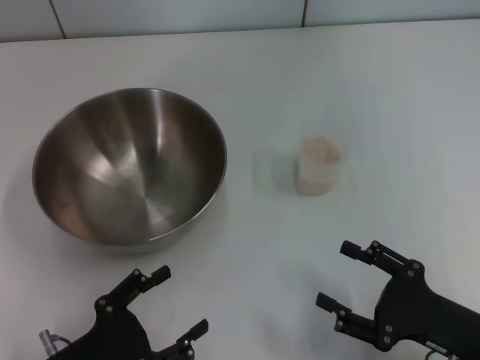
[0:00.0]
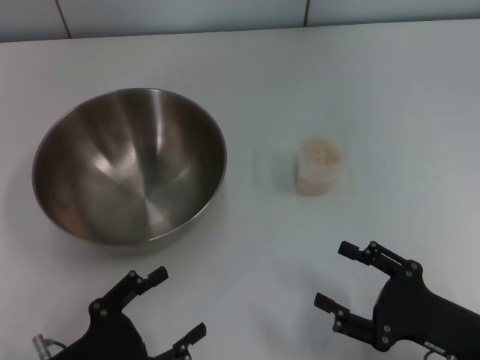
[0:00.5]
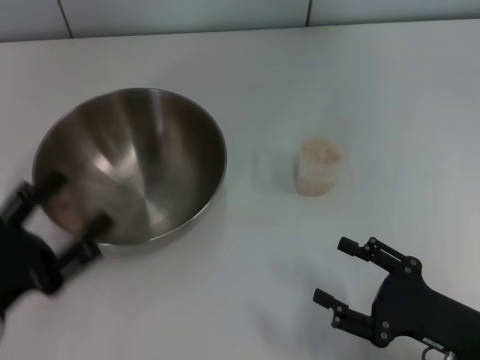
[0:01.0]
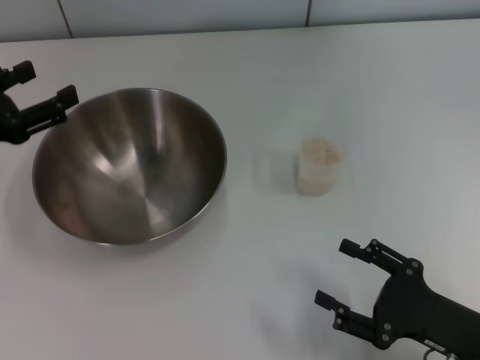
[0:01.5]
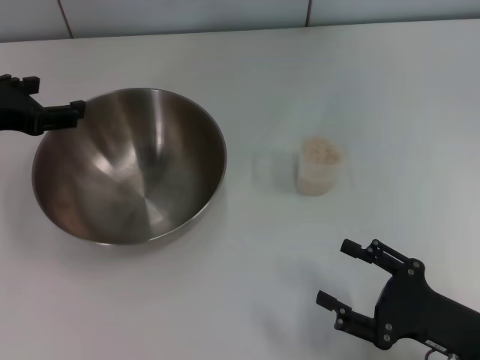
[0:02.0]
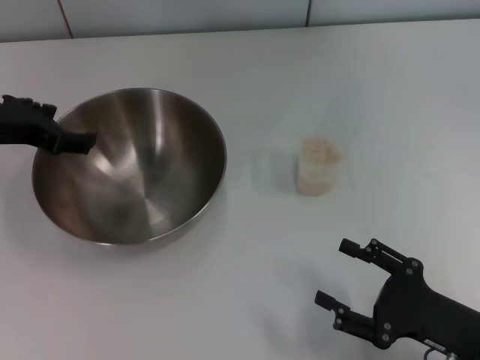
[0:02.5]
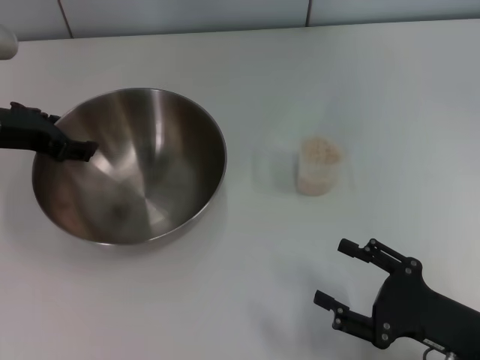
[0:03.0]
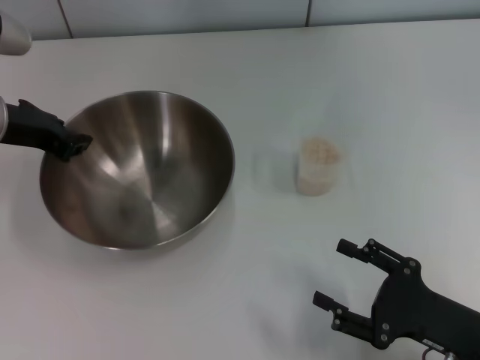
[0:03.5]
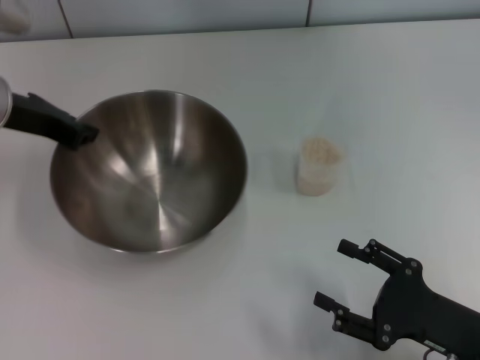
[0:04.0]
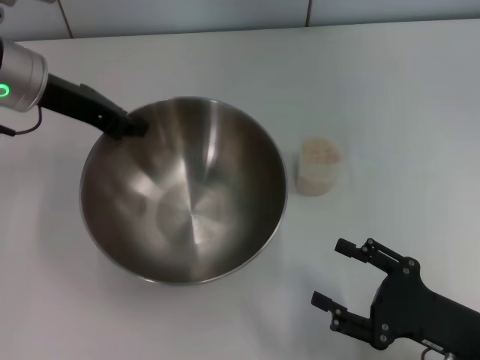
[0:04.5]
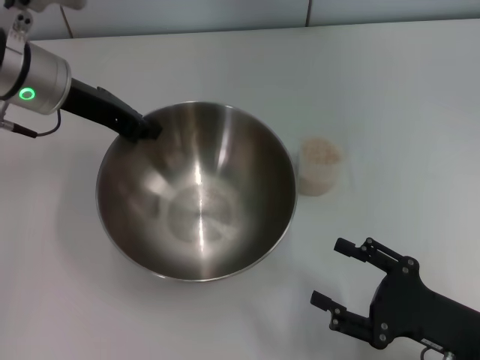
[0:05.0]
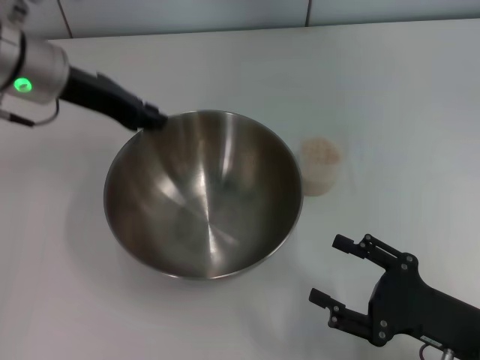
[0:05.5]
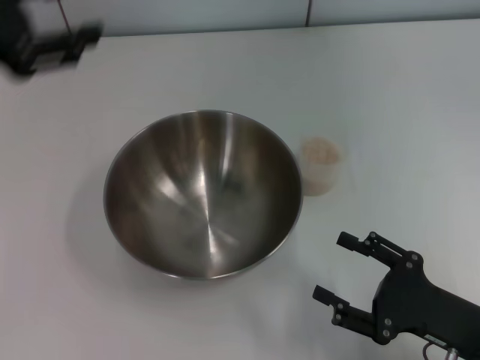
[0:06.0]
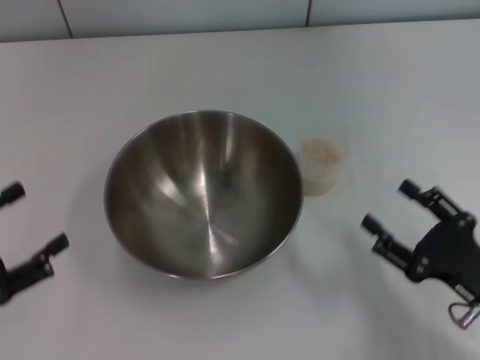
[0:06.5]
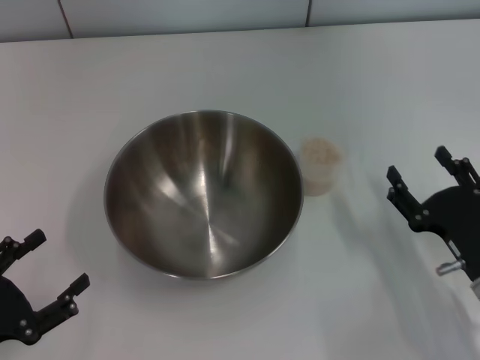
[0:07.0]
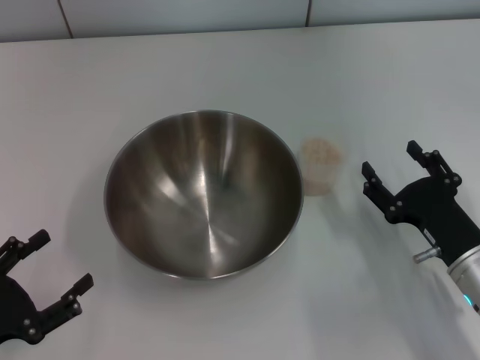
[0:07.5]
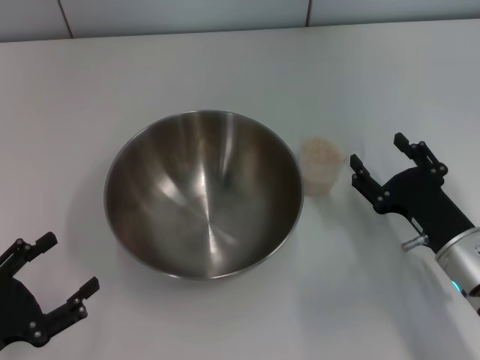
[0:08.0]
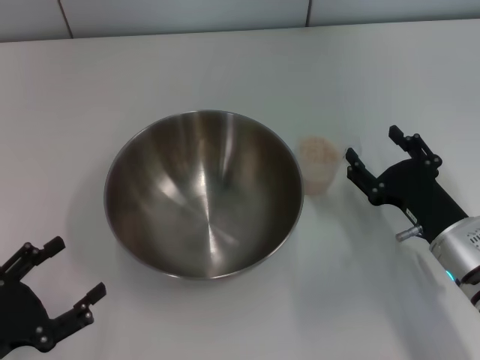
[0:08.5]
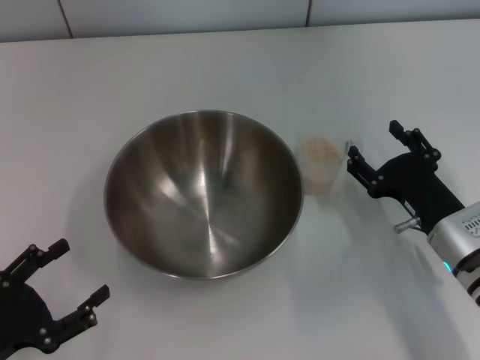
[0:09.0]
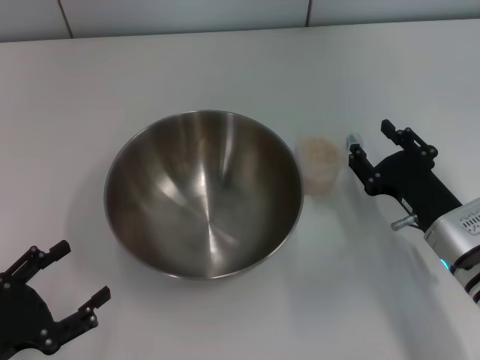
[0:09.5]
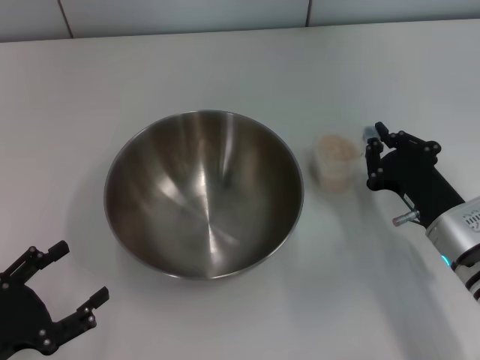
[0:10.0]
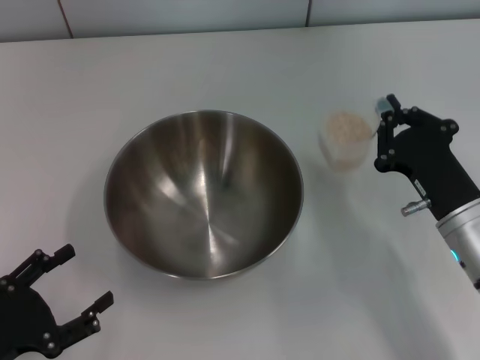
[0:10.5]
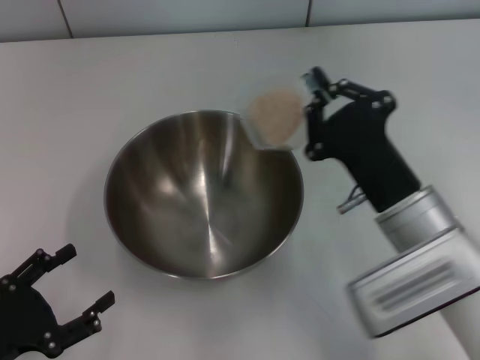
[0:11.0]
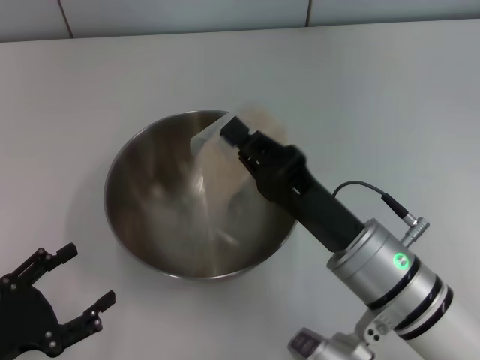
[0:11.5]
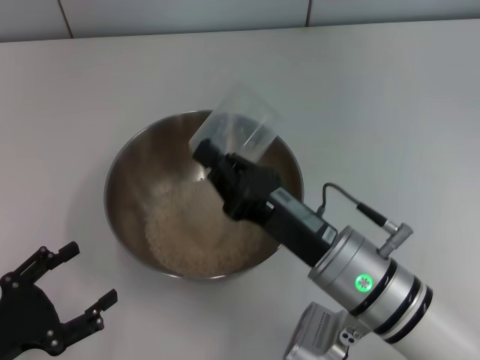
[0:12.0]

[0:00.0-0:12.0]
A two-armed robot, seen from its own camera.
Task of the whole recording: Place the bowl in the middle of the table with one hand and pour the rice from the grain cup into it with the other hand.
Step, 0:00.0 to 0:04.5: Pick up the bowl with the left gripper.
Step, 0:05.0 to 0:06.0: Place the bowl in the center of view with the left gripper.
Step, 0:06.5 to 0:10.5: Pick up the cup with rice in it with the right gripper.
0:00.0 to 0:02.0: The left gripper moves forward and upward, roughly 25 cm.
0:02.0 to 0:04.0: The left gripper changes place by roughly 5 cm, and closes its fingers.
0:04.0 to 0:06.0: The left gripper travels backward and upward by some 10 cm, and opens.
0:06.0 to 0:08.0: The left gripper moves downward and backward, approximately 25 cm, and opens its fingers. Meanwhile the right gripper is displaced forward by approximately 10 cm.
0:08.0 to 0:10.0: The right gripper closes up.
0:10.0 to 0:12.0: The right gripper travels to the left by some 10 cm.

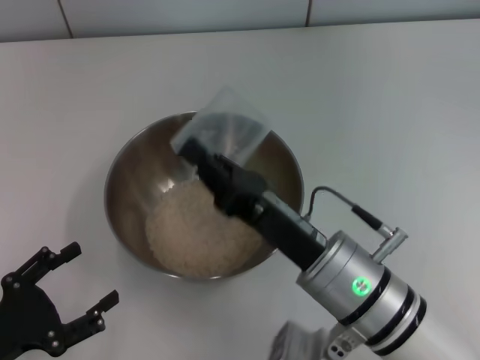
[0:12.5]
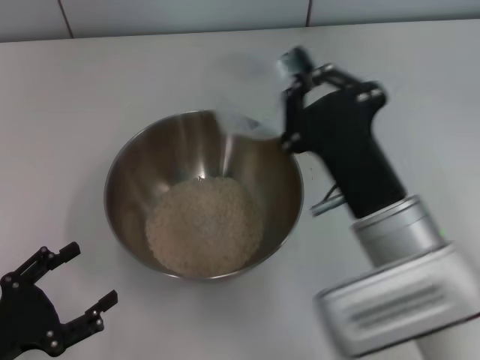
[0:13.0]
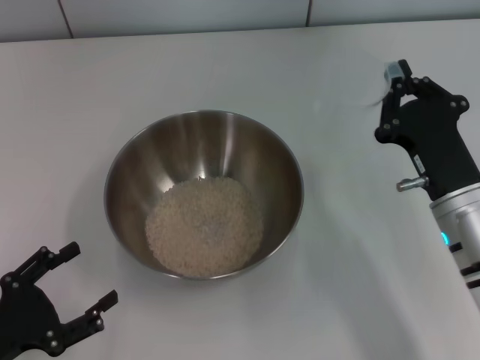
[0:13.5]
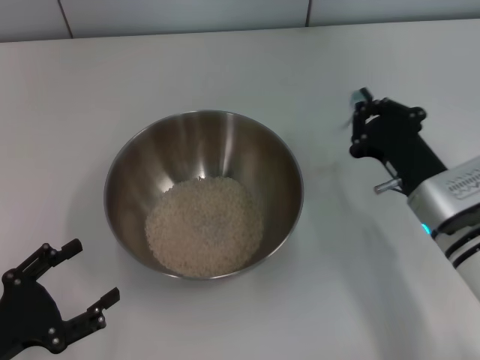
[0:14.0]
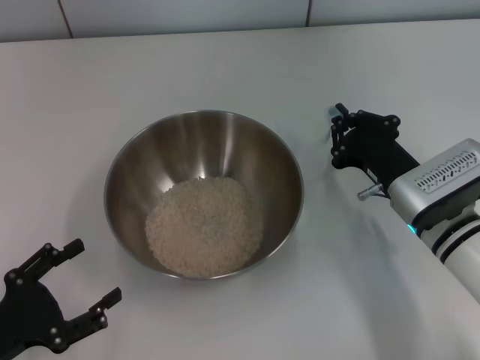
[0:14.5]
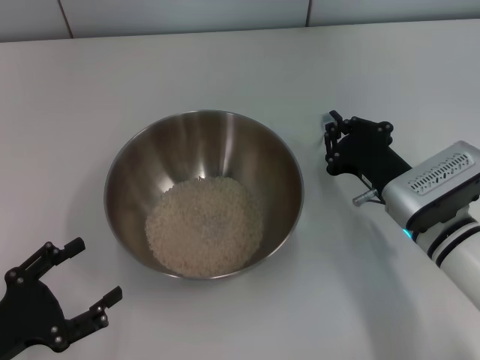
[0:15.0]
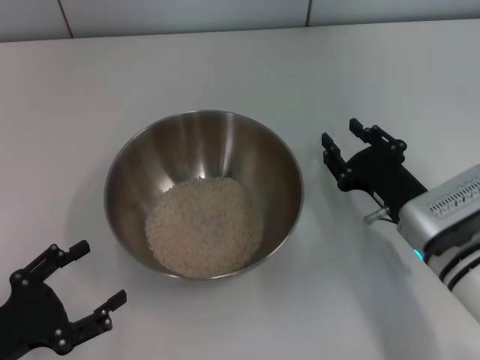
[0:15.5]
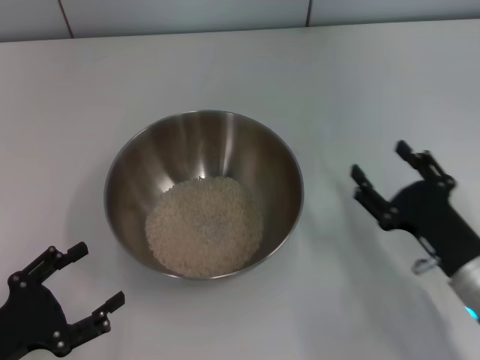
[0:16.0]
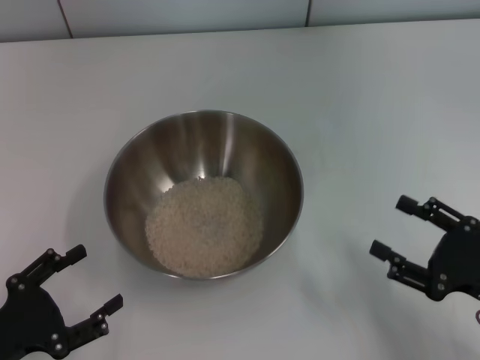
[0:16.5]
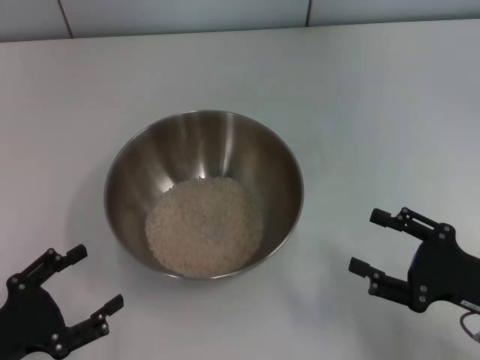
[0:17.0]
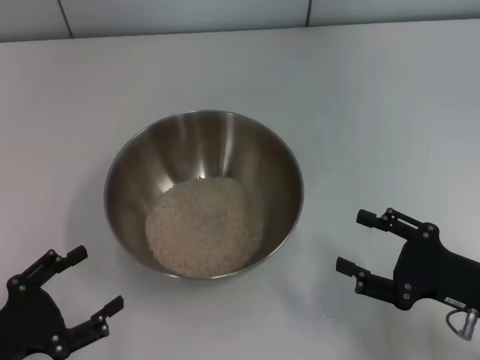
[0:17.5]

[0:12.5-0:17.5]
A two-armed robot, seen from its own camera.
Task of the whole recording: Place the bowl in the middle of the table with one hand and pour the rice from the grain cup into it with the other hand.
Step, 0:13.5 to 0:16.0: Place the cup on the table with the right gripper.
0:12.5 to 0:15.0: The right gripper is displaced to the right, forward and downward by about 15 cm.
0:15.0 to 0:17.5: The right gripper shifts some 15 cm backward and to the right, and opens up.

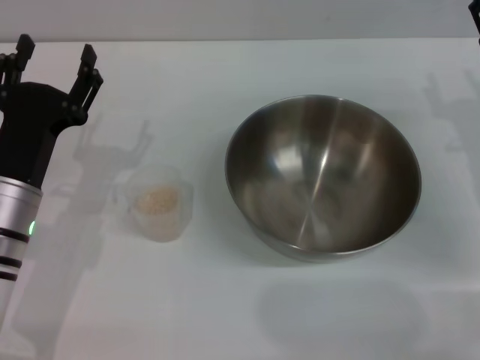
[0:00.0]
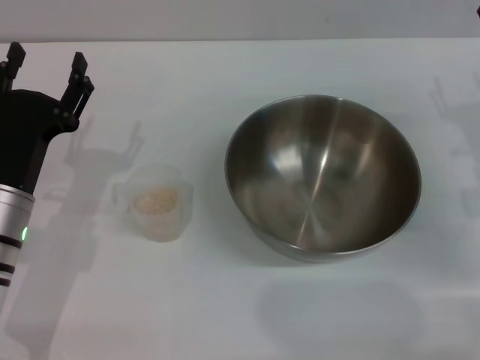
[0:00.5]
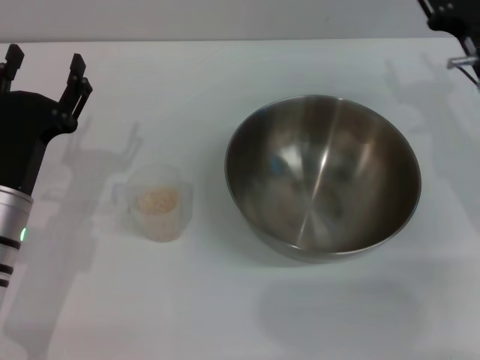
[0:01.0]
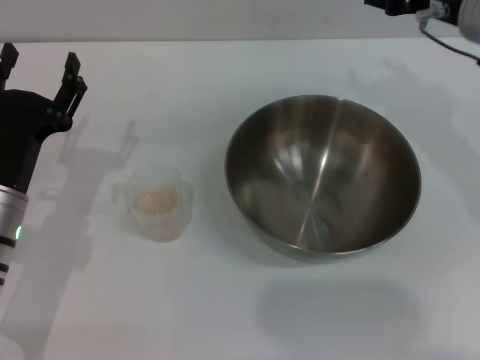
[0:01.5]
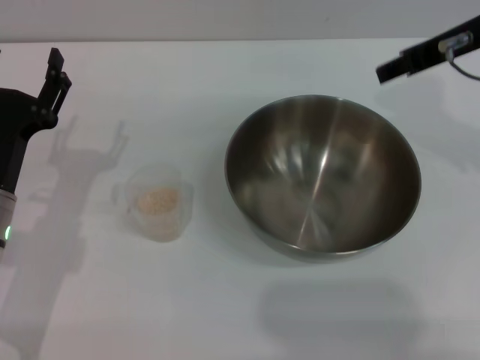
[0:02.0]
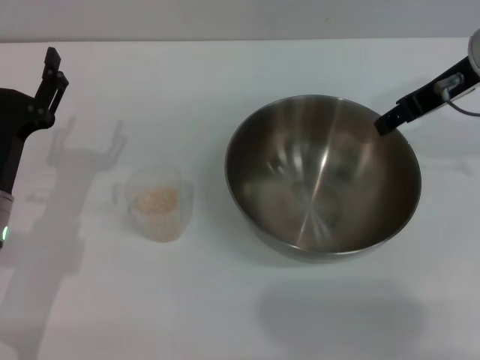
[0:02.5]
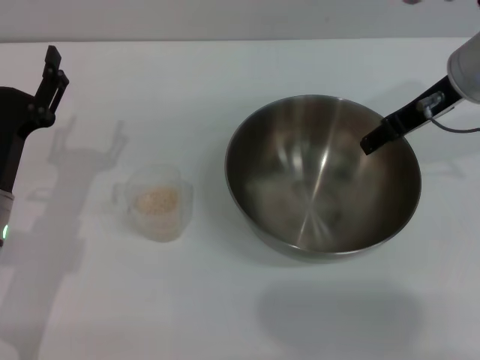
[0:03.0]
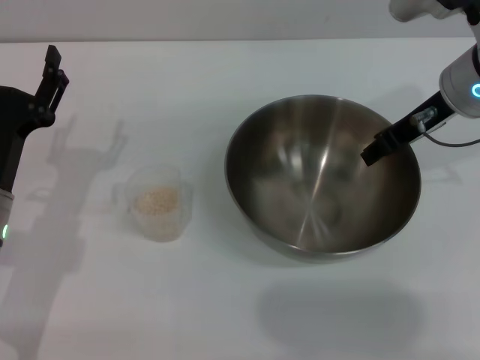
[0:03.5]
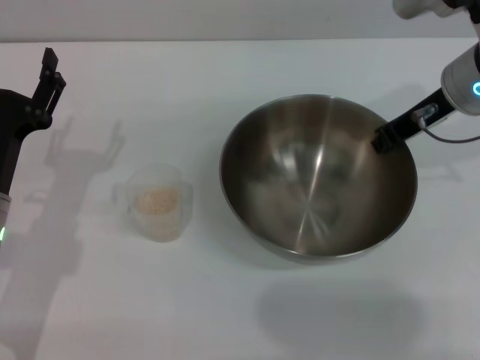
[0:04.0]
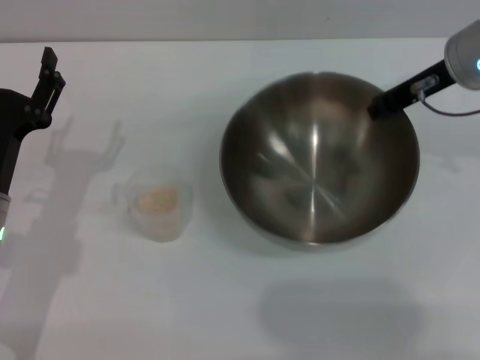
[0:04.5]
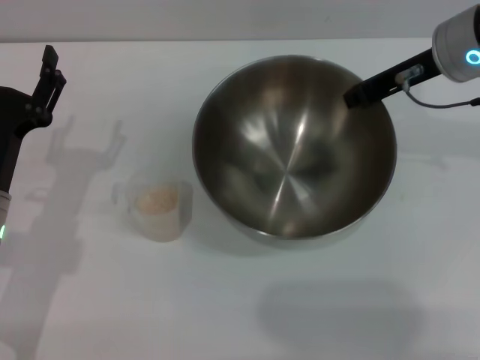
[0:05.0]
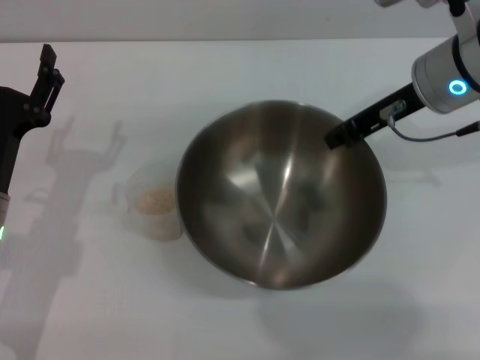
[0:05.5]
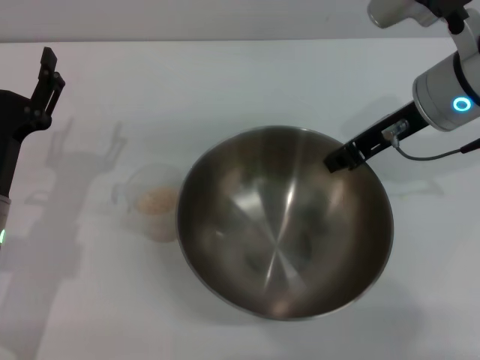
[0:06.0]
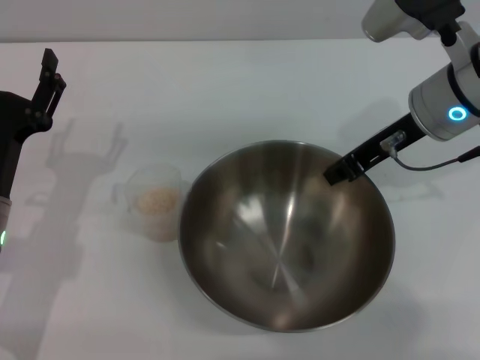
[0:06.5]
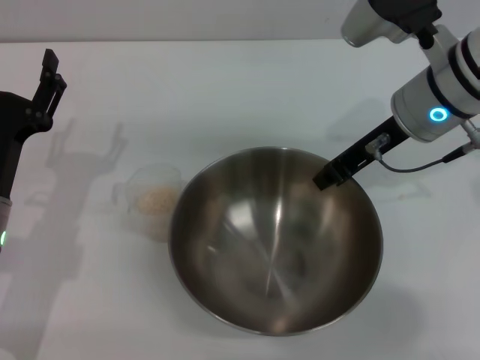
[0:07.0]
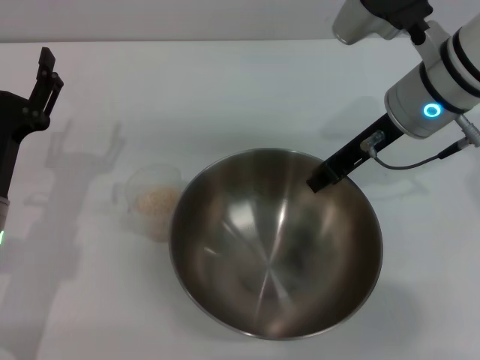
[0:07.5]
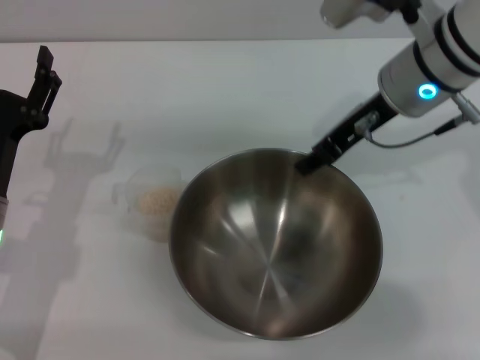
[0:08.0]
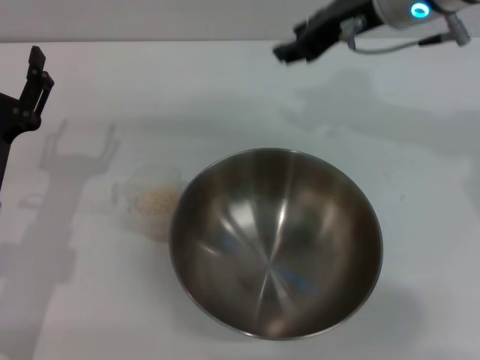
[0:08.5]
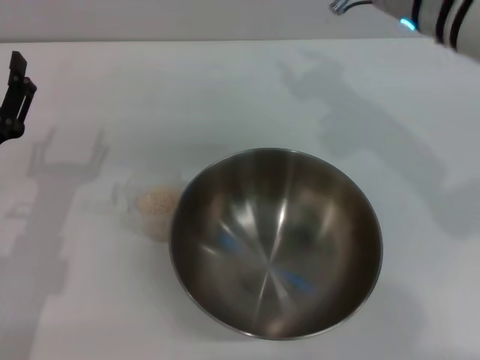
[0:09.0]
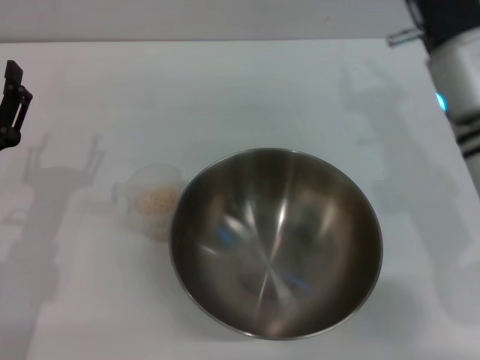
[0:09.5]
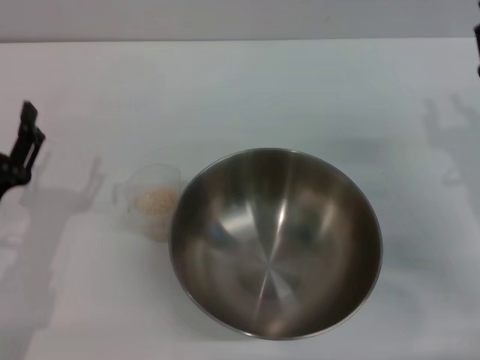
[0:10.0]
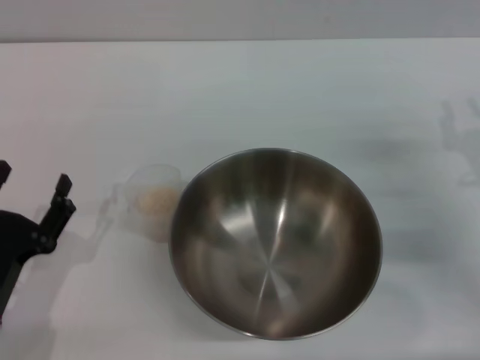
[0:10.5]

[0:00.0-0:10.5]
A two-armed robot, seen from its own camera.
Task of the whole recording: Place the bowl in the middle of the table with one hand and pour the rice from the grain cup into it with the other hand.
Step, 0:00.0 to 0:04.5: Pick up the bowl with the right gripper.
Step, 0:05.0 to 0:08.0: Place the bowl in the center of view with the right gripper.
0:00.0 to 0:02.0: The right gripper moves upward and to the left, approximately 20 cm.
0:02.0 to 0:04.0: The right gripper shifts approximately 5 cm downward, and closes its fingers.
0:06.5 to 0:08.5: The right gripper goes some 10 cm upward, and opens up.
0:08.5 to 0:10.5: The right gripper goes approximately 25 cm downward, to the right and backward, while the left gripper is displaced backward by some 10 cm.
